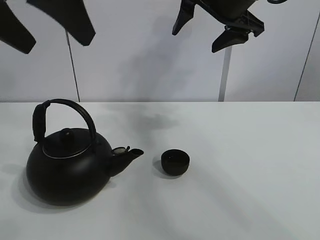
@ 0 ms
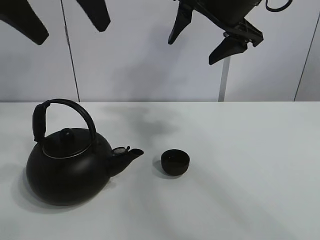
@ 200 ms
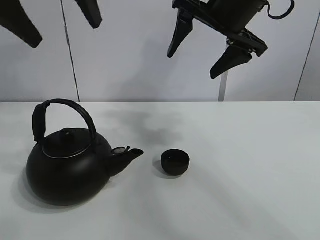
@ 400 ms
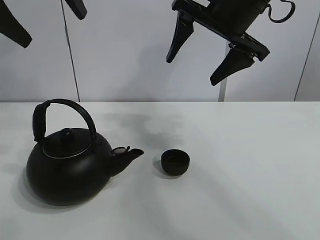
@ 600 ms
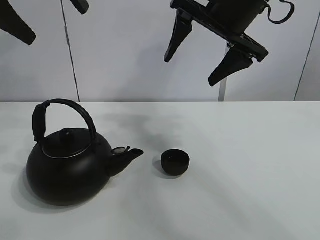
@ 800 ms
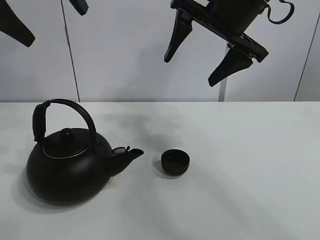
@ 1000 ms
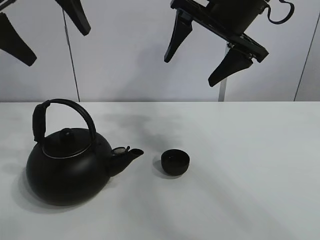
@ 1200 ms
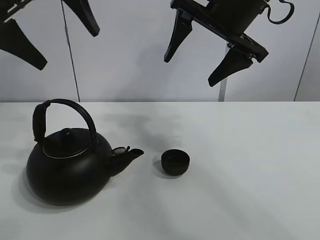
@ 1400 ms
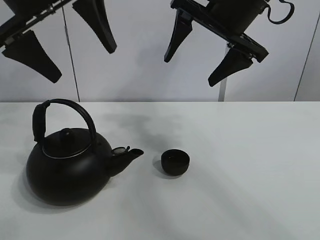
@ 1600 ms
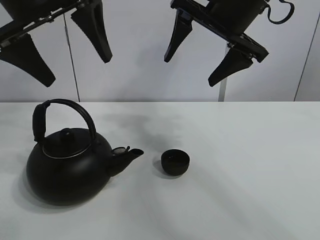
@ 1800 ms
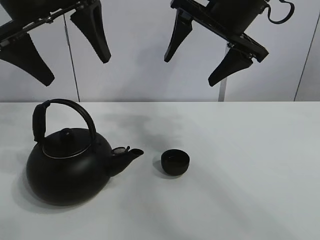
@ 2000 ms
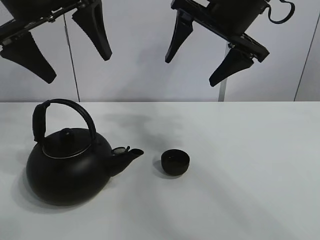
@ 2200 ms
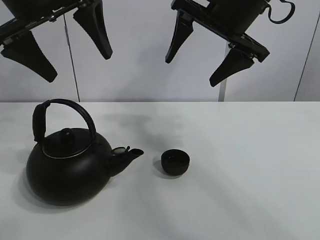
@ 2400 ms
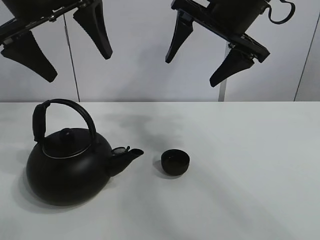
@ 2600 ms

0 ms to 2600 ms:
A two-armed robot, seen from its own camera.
Task of the whole recording: pour tea into the teacup.
0 ms to 1200 ms: The left gripper travels forward by roughly 10 cm.
1200 ms to 2600 ms: There are only small adjustments of the grippers.
